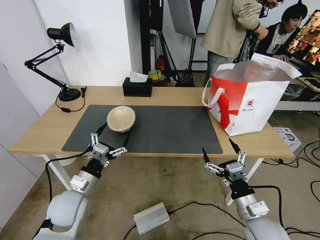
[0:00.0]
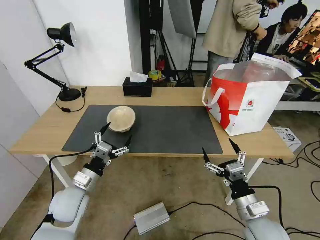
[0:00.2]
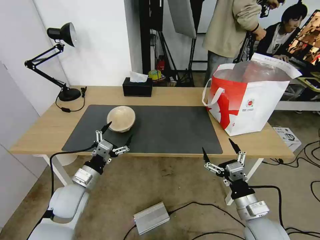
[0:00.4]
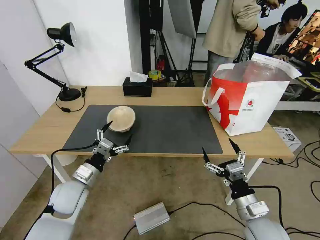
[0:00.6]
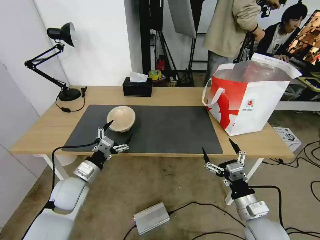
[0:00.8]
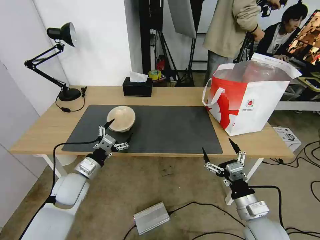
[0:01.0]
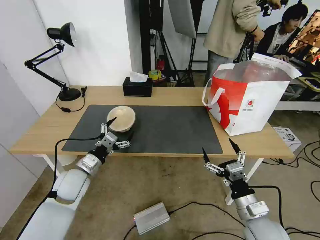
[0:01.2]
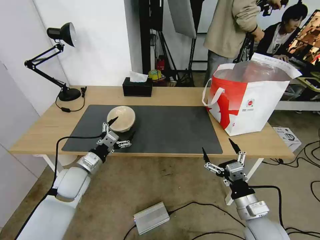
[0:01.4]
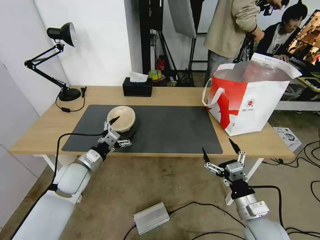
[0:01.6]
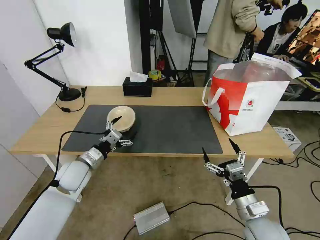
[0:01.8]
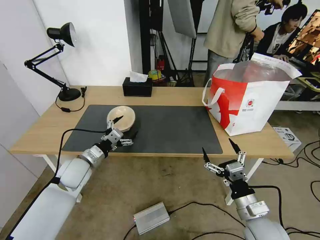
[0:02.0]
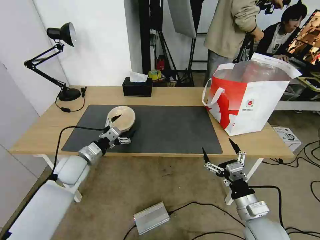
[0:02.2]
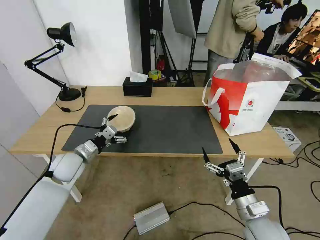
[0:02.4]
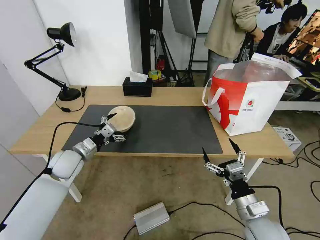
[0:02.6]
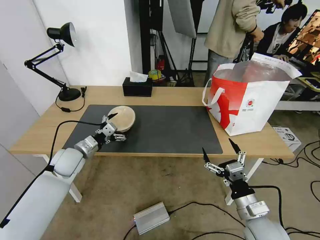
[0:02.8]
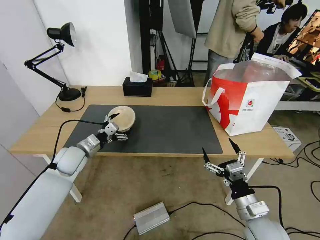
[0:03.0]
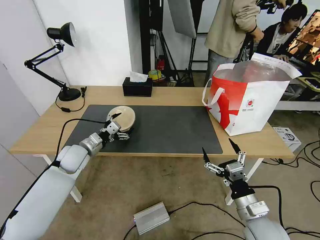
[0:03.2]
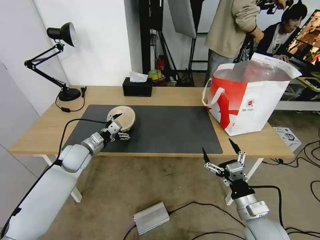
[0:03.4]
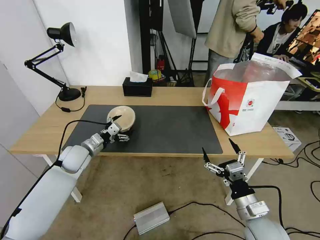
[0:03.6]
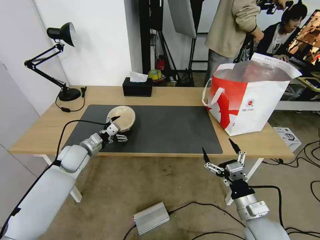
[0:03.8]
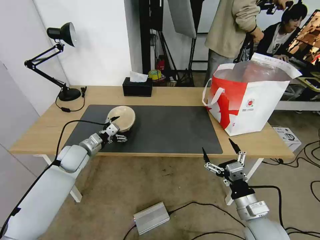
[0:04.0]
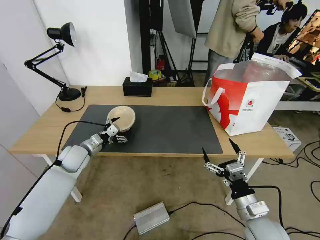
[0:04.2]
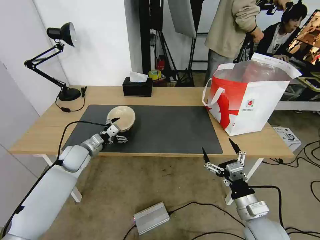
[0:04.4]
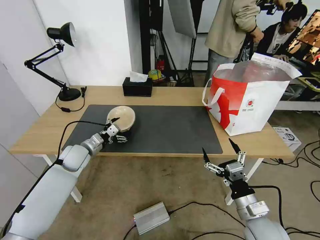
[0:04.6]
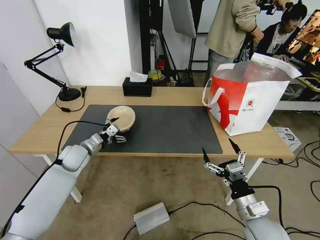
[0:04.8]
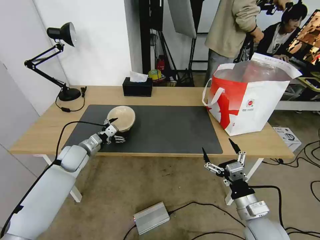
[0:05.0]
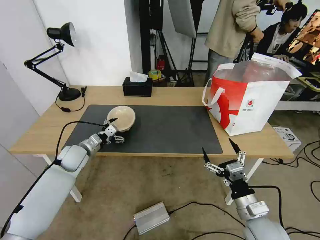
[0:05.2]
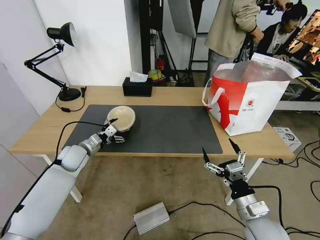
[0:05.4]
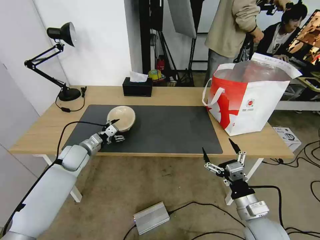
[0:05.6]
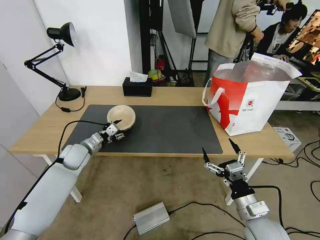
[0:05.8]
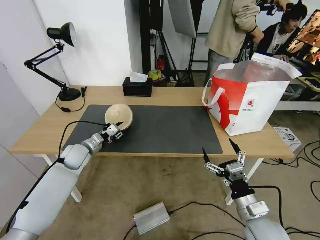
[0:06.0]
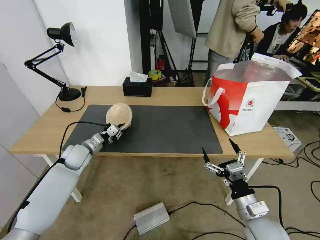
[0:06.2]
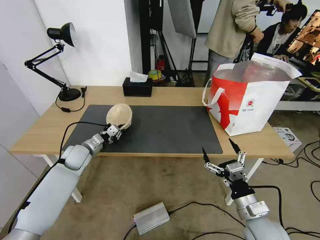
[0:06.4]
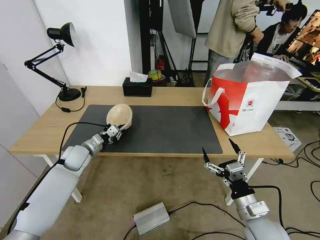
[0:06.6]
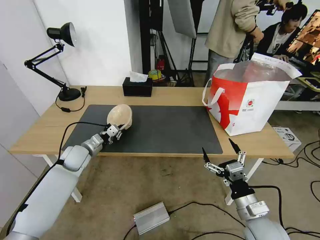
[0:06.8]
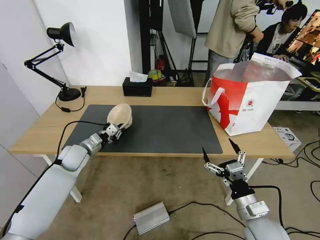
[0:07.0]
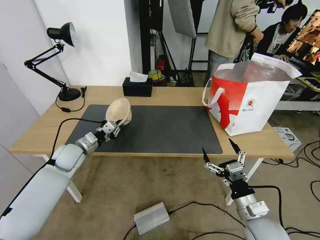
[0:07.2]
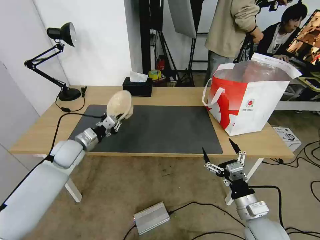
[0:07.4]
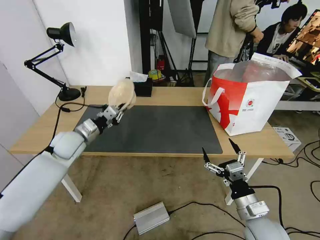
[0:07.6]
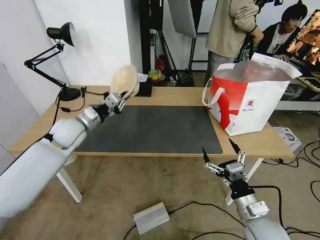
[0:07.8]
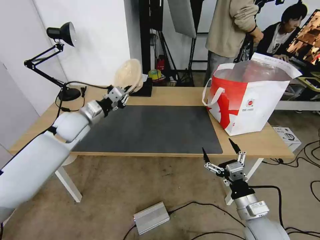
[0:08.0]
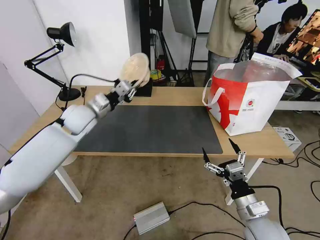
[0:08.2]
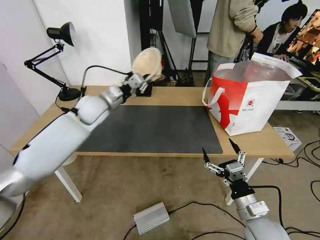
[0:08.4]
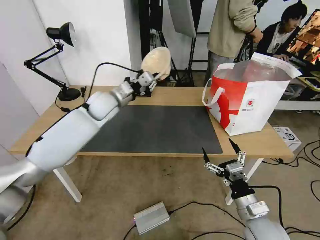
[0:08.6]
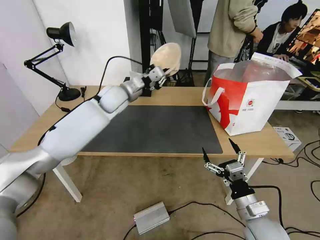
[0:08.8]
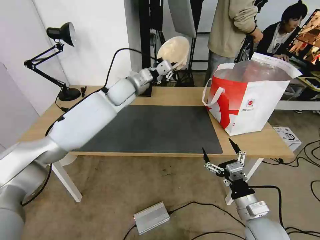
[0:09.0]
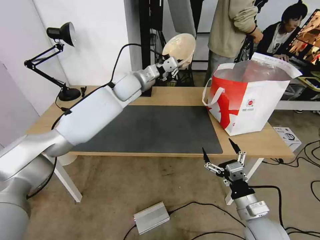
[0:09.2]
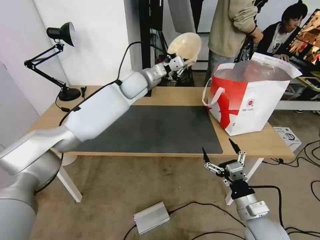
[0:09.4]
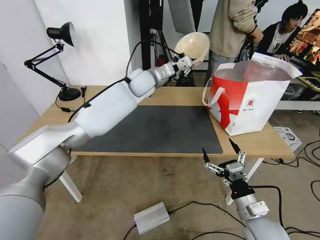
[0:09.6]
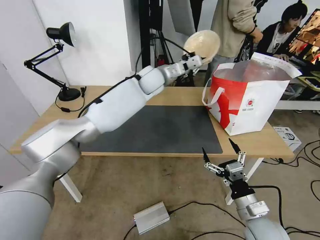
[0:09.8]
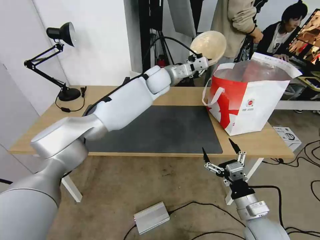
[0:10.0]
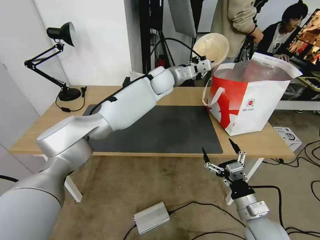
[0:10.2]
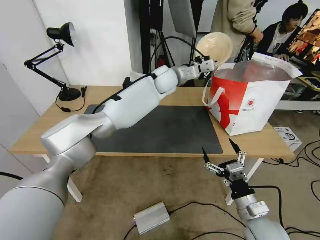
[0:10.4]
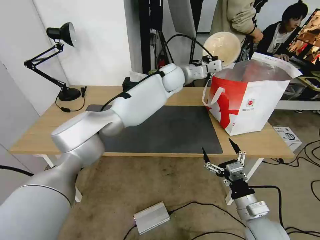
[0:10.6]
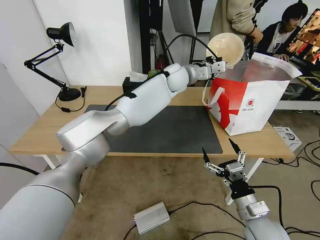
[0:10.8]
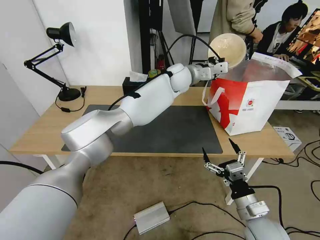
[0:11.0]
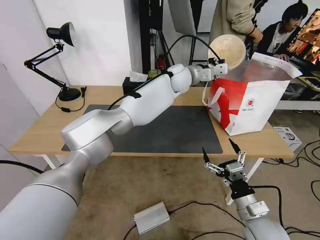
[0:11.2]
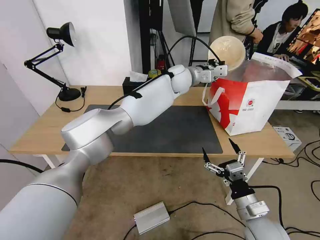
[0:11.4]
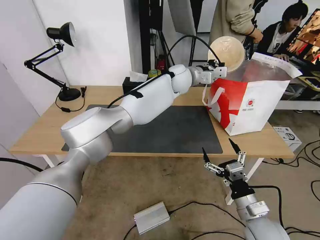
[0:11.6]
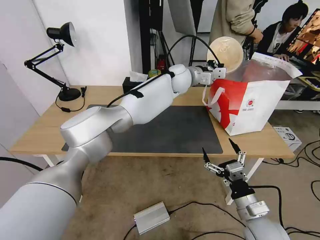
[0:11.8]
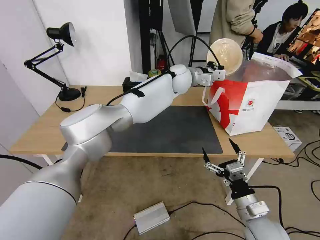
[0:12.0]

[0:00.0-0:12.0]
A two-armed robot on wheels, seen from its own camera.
Task of the whole recording: Pick up the trash from the table and place it into the takeout bag.
0:00.0 to 0:01.6: The left gripper moves forward, some 10 cm.
0:01.6 to 0:03.0: The left gripper travels forward by roughly 5 cm.
0:03.0 to 0:04.4: The grippers make only small movements.
0:04.4 to 0:06.0: The left gripper closes up.
0:06.0 to 0:07.6: The left gripper travels upward by approximately 10 cm.
0:07.6 to 0:09.0: The left gripper is displaced to the right, forward and upward by about 25 cm.
0:09.0 to 0:10.4: The left gripper heads to the right, covering some 15 cm.
0:10.4 to 0:12.0: The left gripper goes some 5 cm to the right.

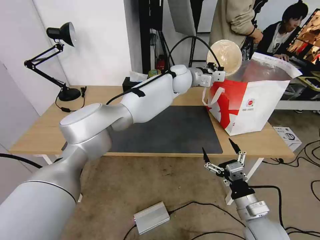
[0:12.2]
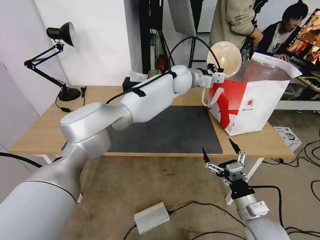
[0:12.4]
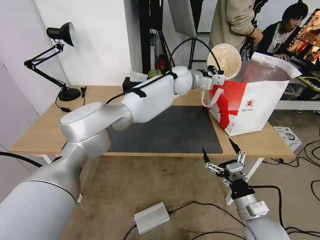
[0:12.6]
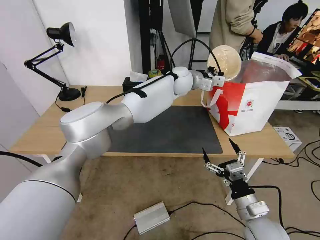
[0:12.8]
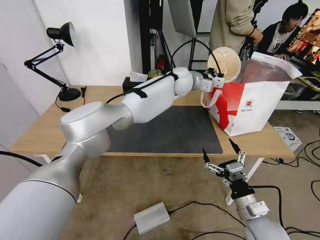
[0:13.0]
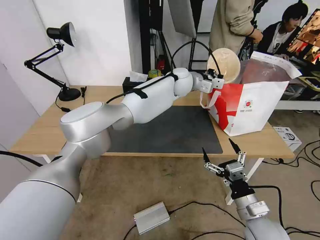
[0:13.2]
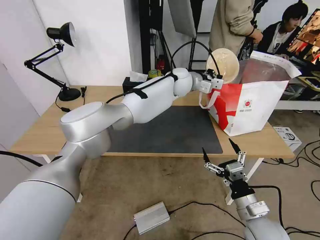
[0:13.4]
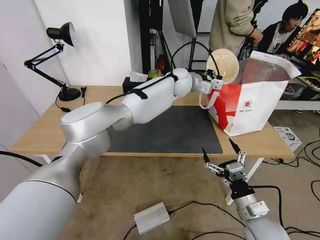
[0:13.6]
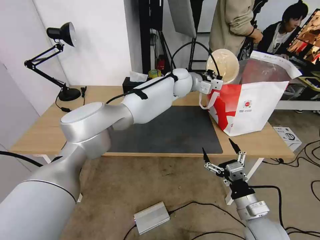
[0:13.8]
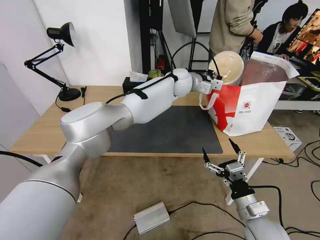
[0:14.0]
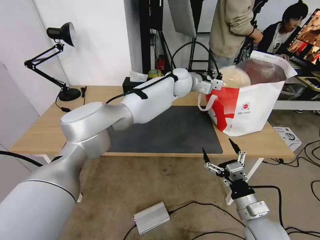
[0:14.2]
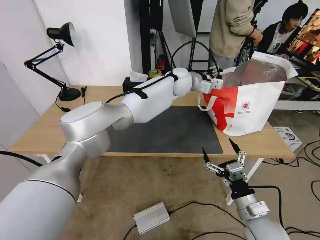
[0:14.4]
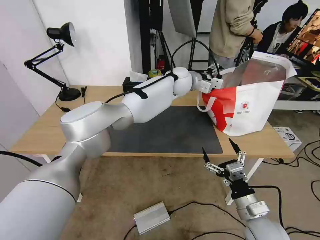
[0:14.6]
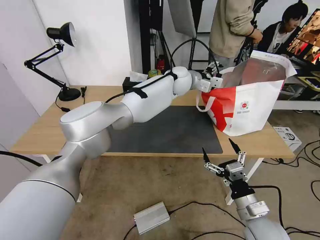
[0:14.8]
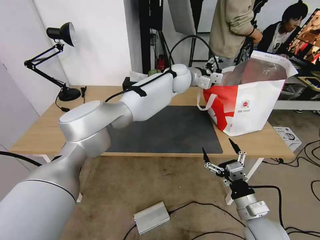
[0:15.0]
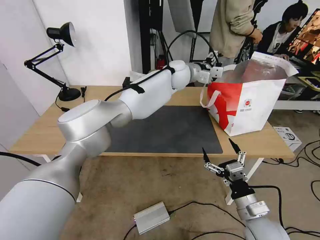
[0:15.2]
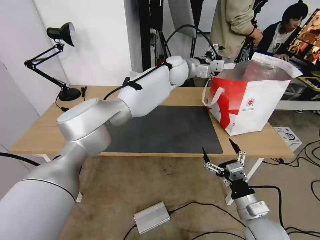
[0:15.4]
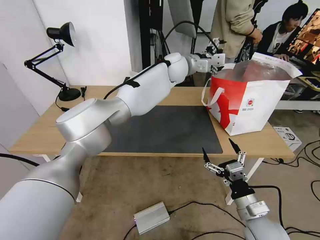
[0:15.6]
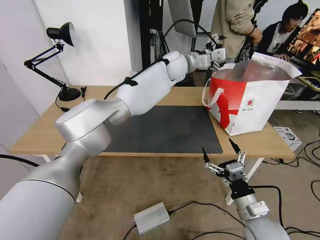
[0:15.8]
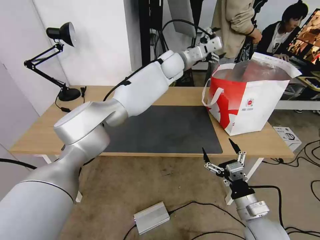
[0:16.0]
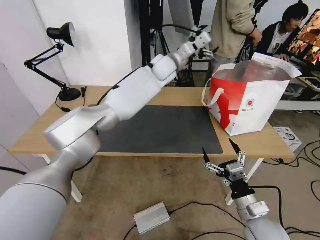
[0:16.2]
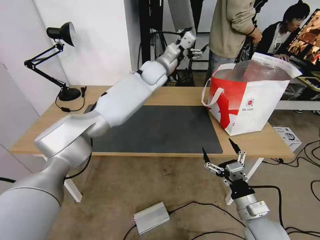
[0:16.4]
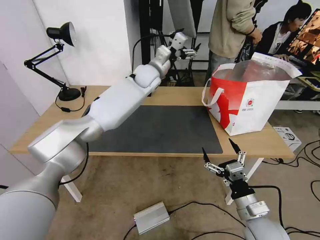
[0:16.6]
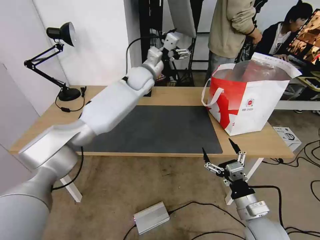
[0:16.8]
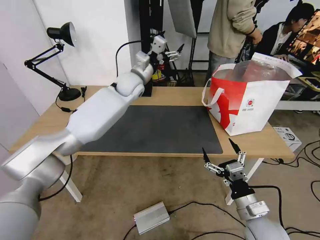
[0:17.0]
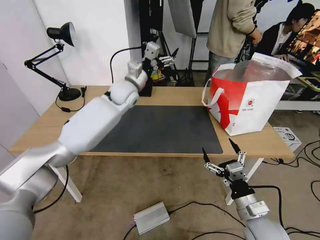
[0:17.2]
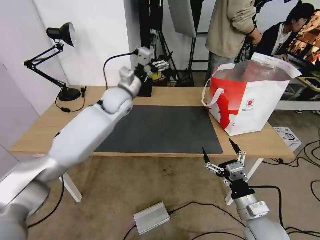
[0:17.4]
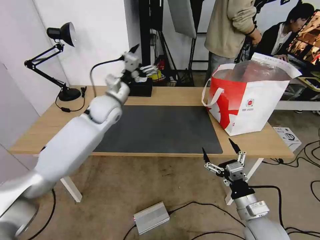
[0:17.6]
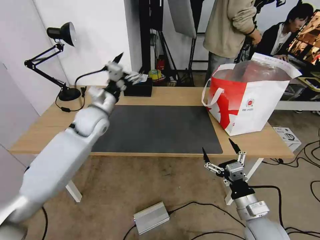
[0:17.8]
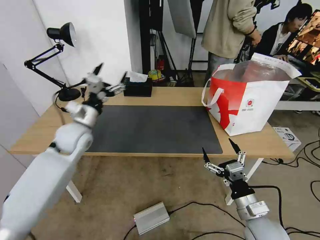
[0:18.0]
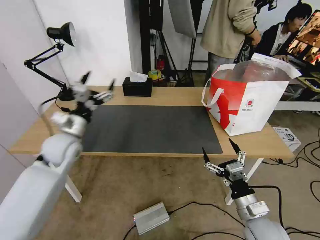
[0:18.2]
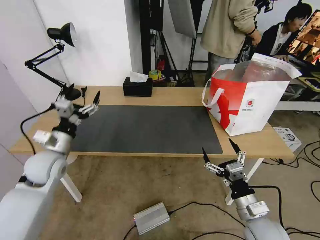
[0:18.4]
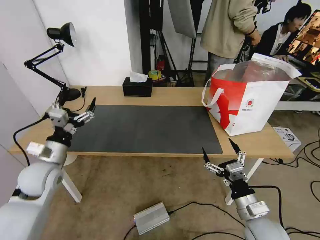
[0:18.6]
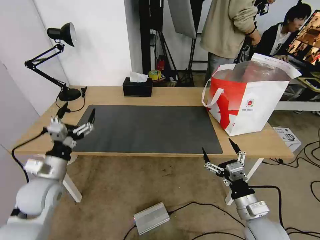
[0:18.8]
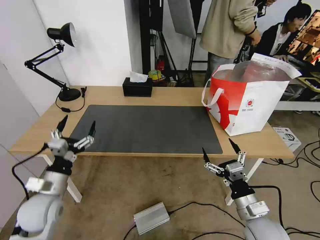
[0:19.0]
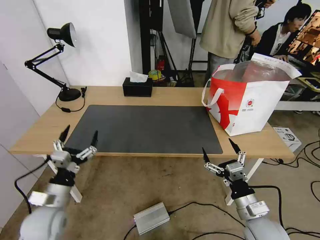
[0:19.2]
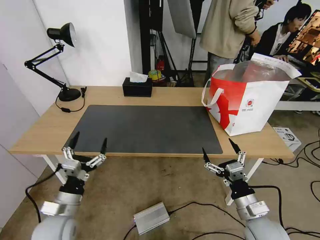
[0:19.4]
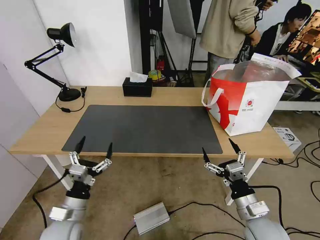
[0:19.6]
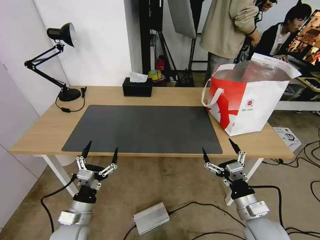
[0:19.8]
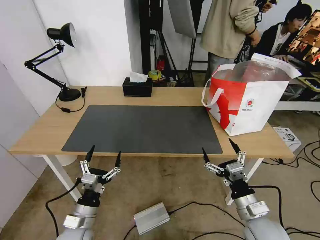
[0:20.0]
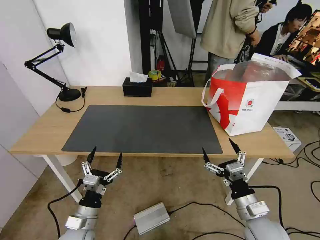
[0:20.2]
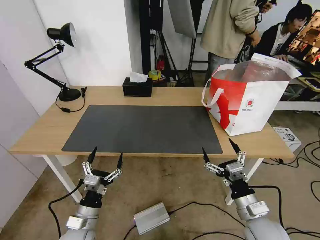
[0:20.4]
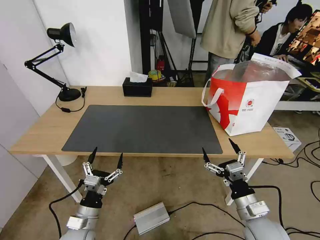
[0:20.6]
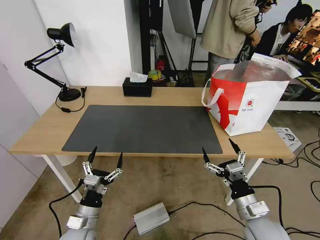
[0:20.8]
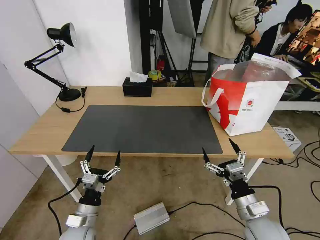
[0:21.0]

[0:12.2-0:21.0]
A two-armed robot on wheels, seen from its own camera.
Task of the whole recording: Pick up the trash from the table and place it into the takeout bag.
0:12.2 to 0:13.6: The grippers stay close to where they were, moving slightly.
0:13.6 to 0:15.2: The left gripper opens.
0:15.2 to 0:16.6: The left gripper heads to the left, covering about 10 cm.
0:16.6 to 0:18.0: The left gripper heads to the left, backward and downward, covering approximately 30 cm.
0:18.0 to 0:19.6: The left gripper moves backward and downward, approximately 30 cm.
0:19.6 to 0:21.0: The grippers stay close to where they were, moving slightly.

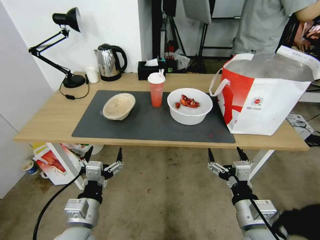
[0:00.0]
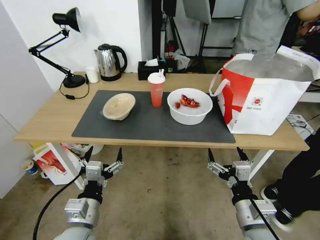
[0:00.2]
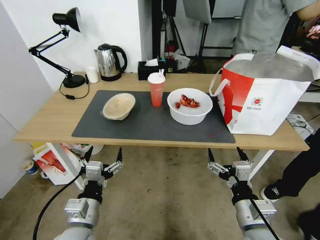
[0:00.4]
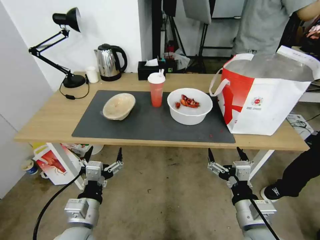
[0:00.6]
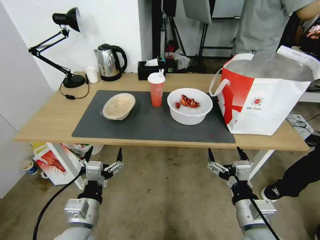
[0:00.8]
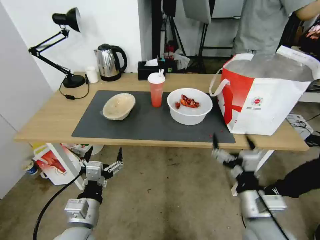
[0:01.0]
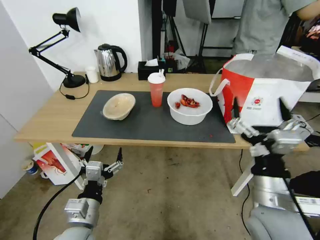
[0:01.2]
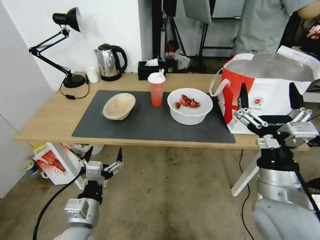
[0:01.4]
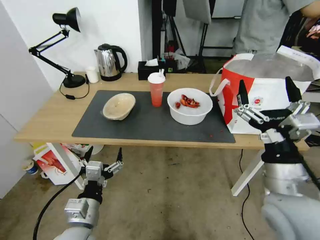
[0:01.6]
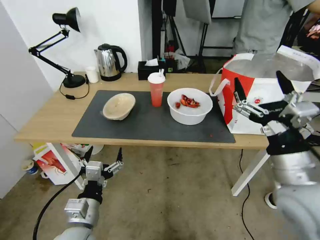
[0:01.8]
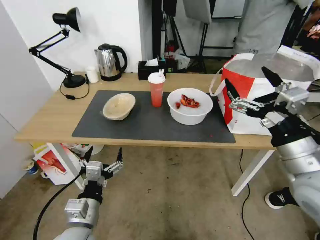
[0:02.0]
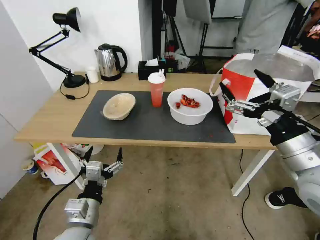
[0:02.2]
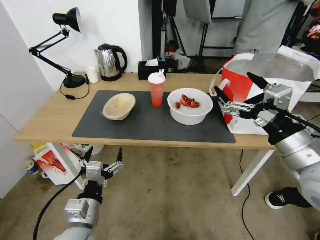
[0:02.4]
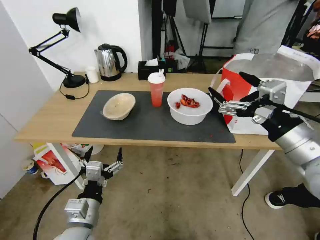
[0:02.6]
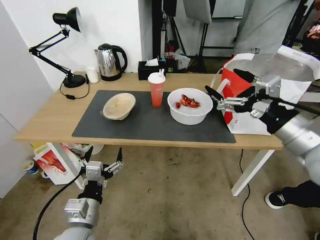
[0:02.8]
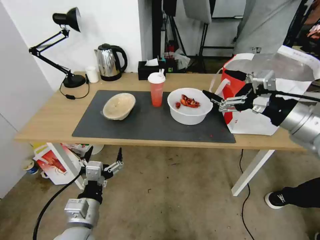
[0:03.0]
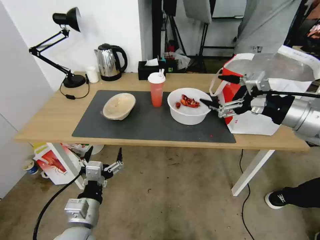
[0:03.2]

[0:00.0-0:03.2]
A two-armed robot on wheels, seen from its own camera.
Task of the whole recording: Pick up the trash from the table and place it into the takeout bag.
0:01.6 to 0:03.2: The right gripper is displaced upward, forward and to the right by roughly 20 cm.
